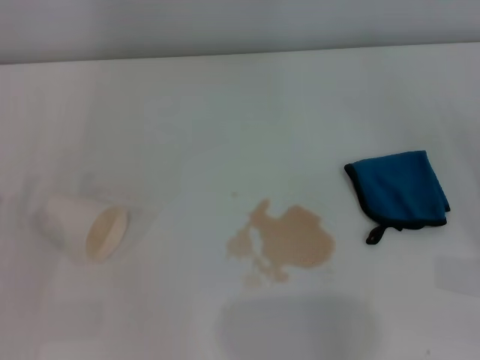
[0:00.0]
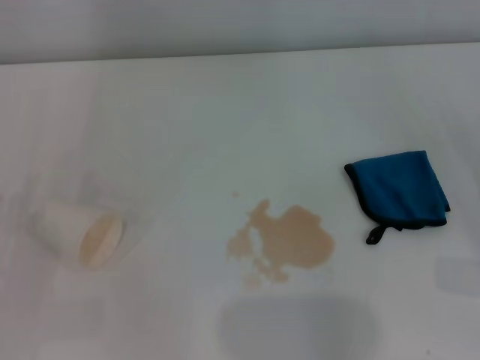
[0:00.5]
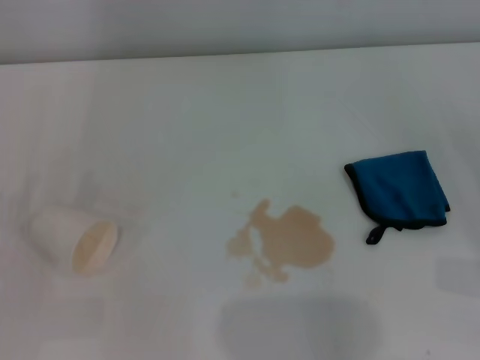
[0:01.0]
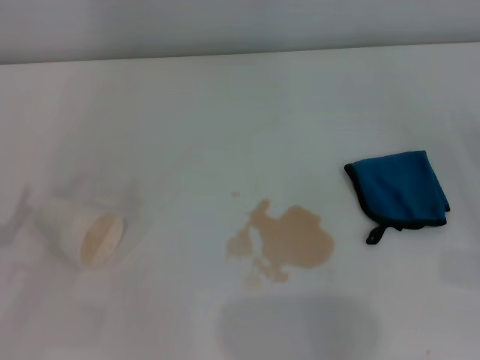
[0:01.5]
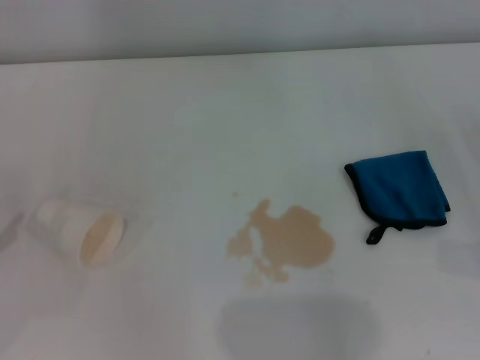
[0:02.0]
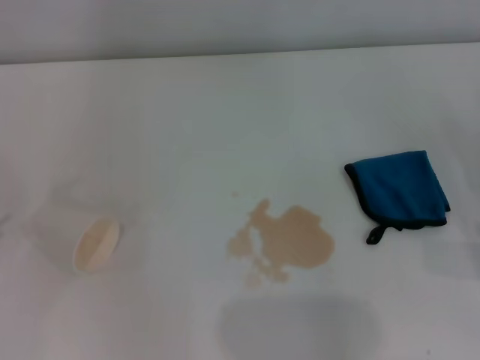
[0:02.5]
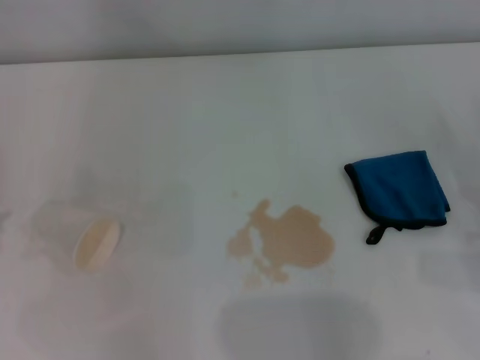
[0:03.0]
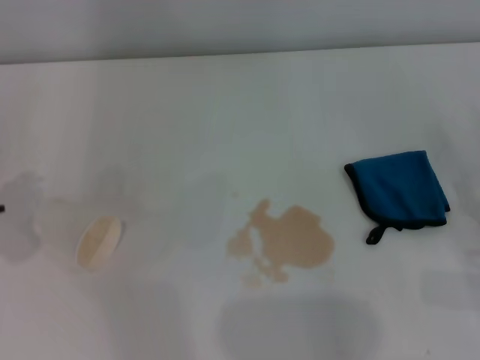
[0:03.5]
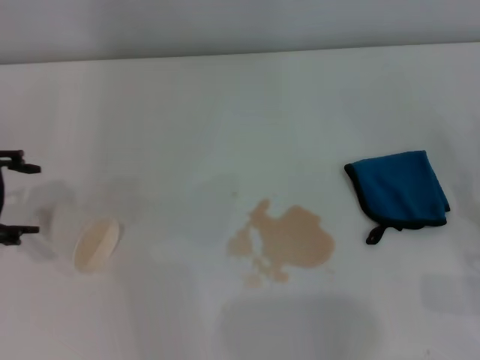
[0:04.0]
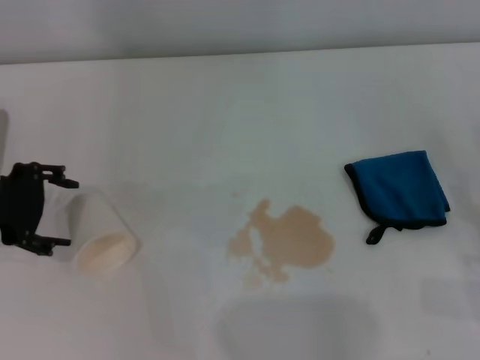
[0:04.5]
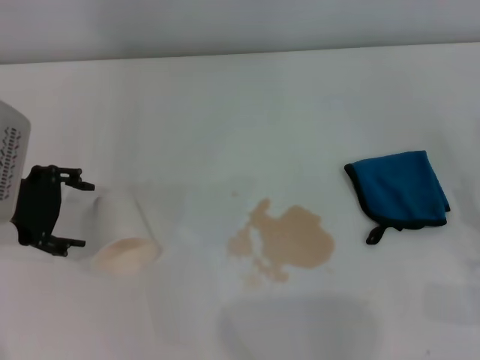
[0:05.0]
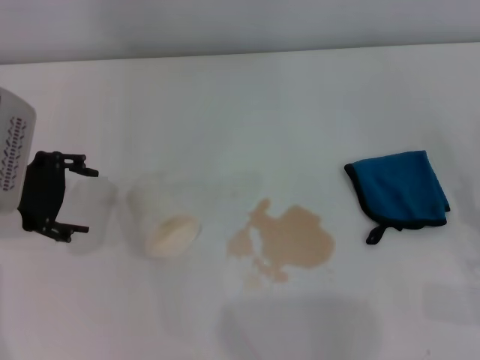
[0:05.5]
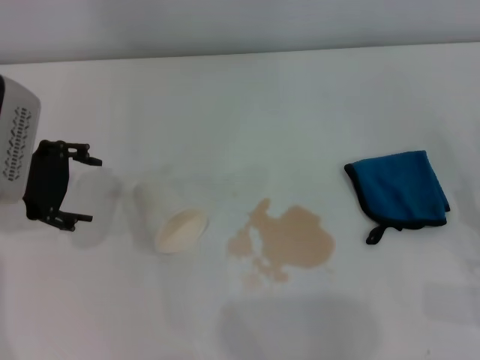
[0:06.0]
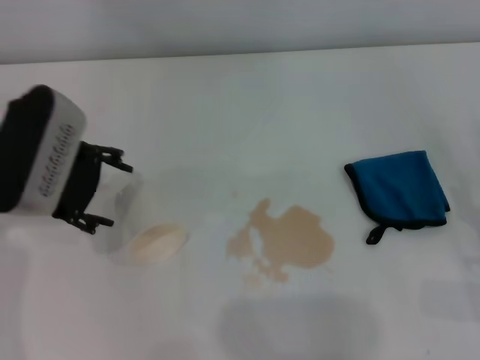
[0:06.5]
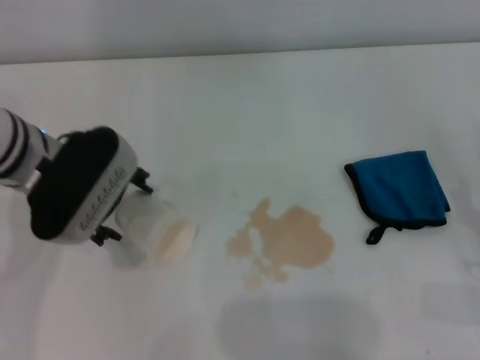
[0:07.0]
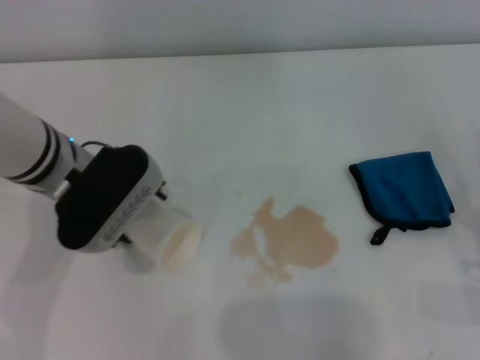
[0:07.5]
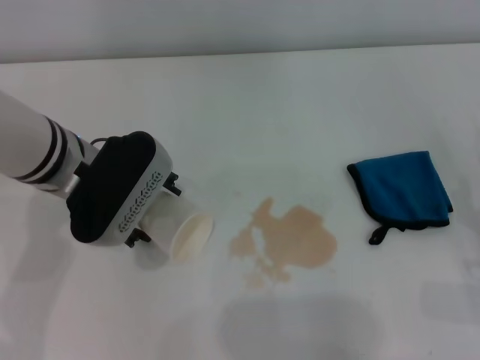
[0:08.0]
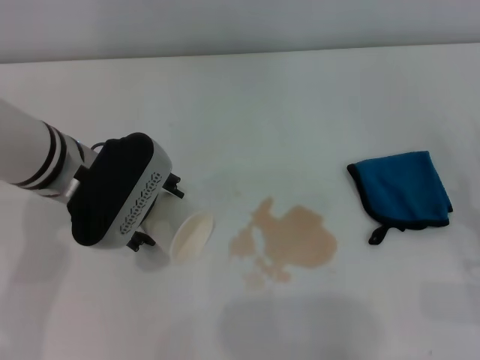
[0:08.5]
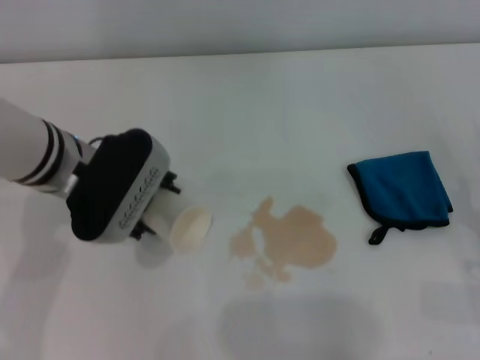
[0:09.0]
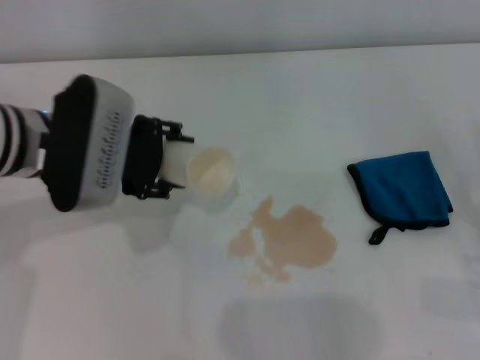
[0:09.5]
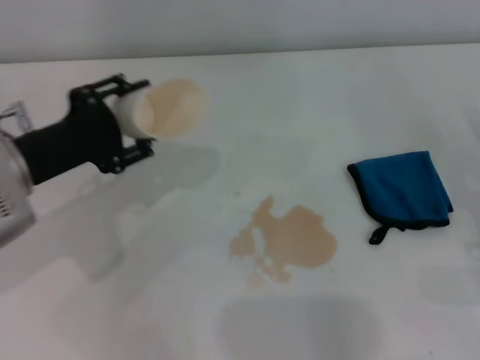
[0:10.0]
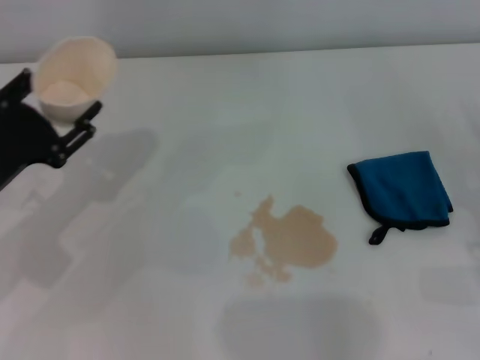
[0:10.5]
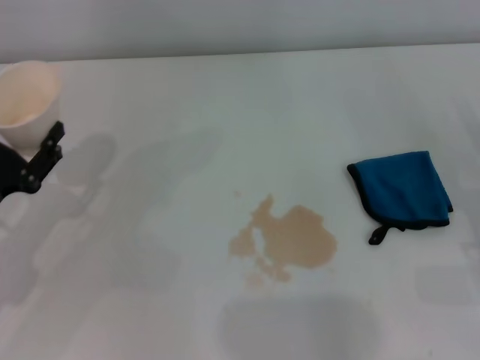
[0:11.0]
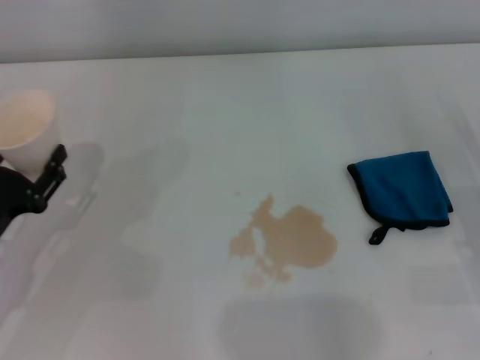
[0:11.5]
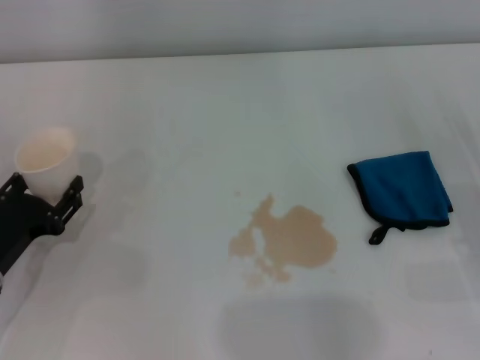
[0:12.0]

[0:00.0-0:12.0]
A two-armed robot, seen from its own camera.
Step, 0:00.0 to 0:08.5: Grasp the paper cup with the left gripper.
0:02.0 to 0:04.0: The left gripper travels forward, to the right and upward by roughly 15 cm.
0:04.0 to 0:06.0: The left gripper shifts some 5 cm to the right.
0:06.0 to 0:08.0: The left gripper travels to the right by some 10 cm.
0:08.0 to 0:10.0: The left gripper is displaced to the left by approximately 10 cm, and closes its fingers.
0:10.0 to 0:12.0: The left gripper heads downward, backward and to the left, covering approximately 15 cm.

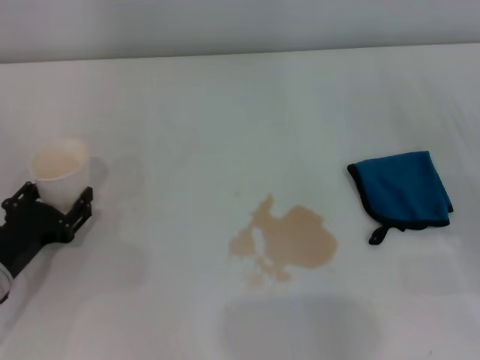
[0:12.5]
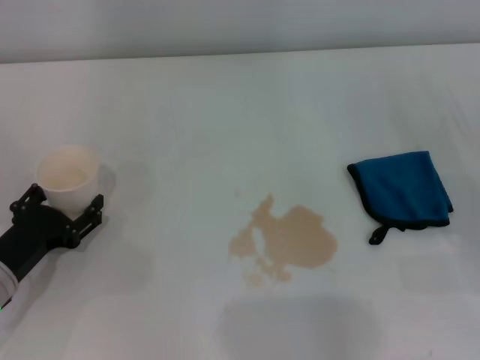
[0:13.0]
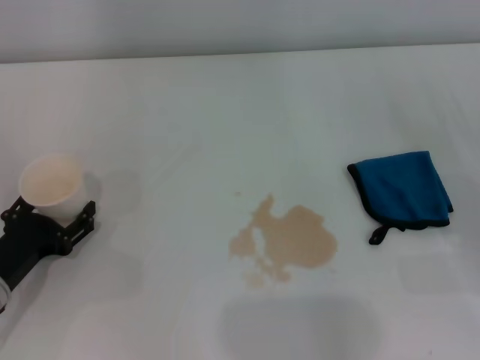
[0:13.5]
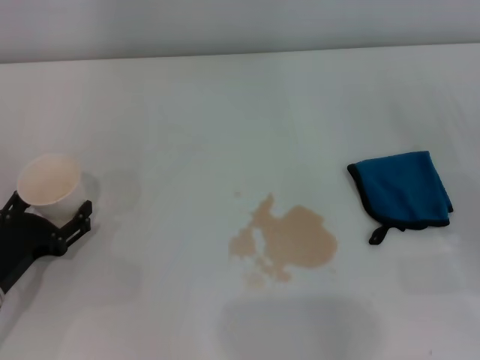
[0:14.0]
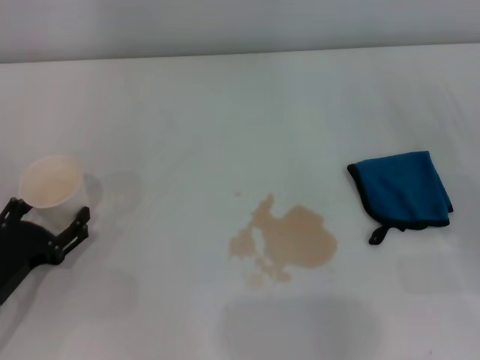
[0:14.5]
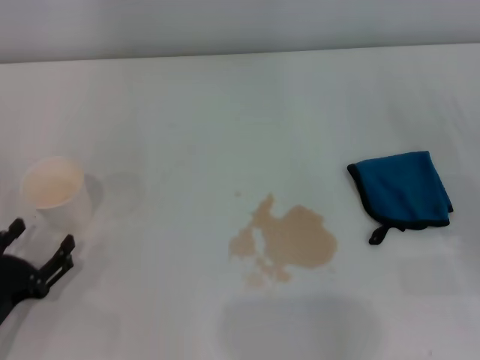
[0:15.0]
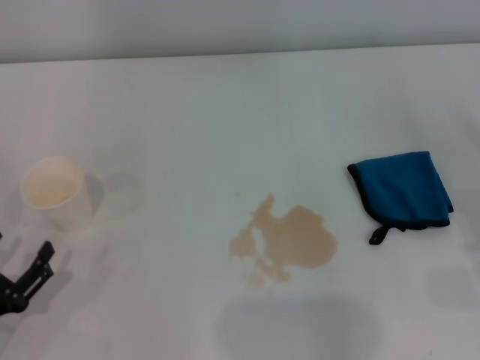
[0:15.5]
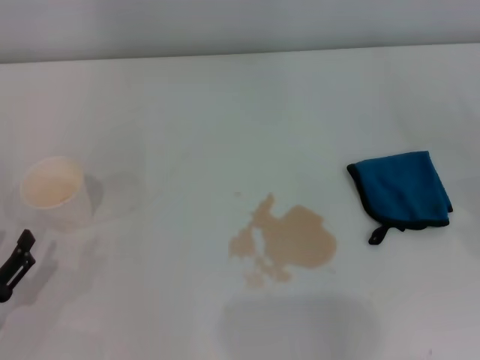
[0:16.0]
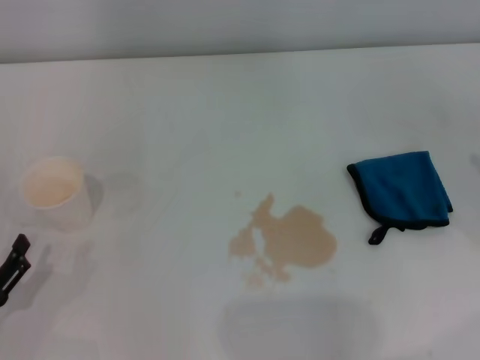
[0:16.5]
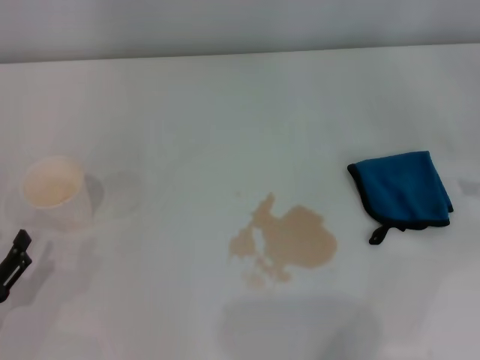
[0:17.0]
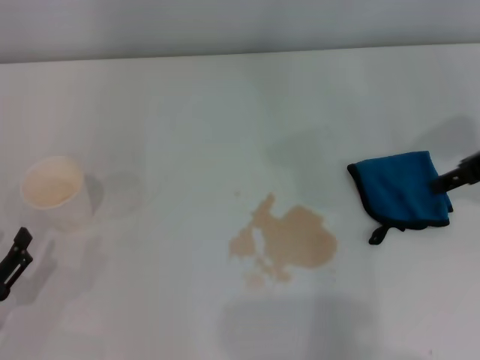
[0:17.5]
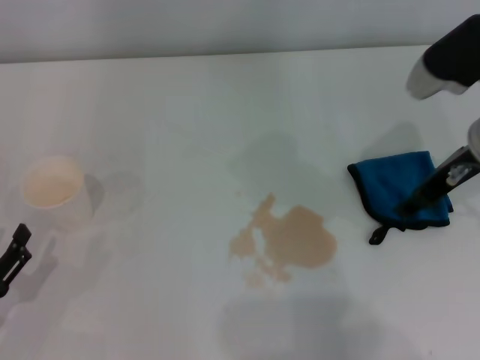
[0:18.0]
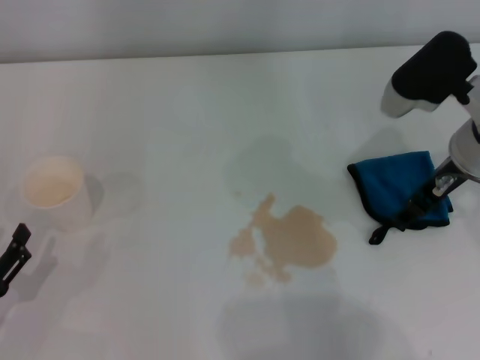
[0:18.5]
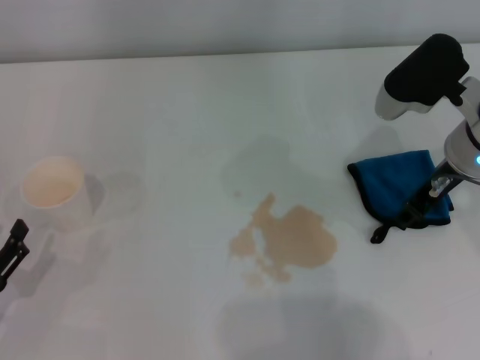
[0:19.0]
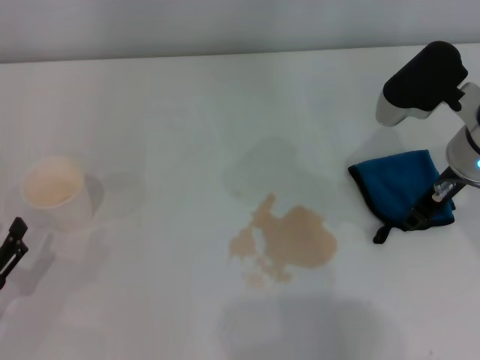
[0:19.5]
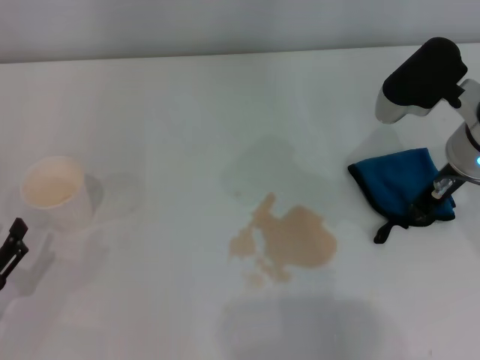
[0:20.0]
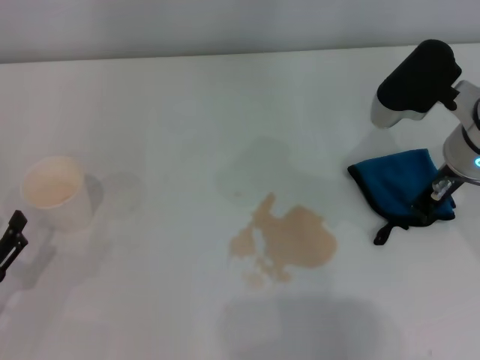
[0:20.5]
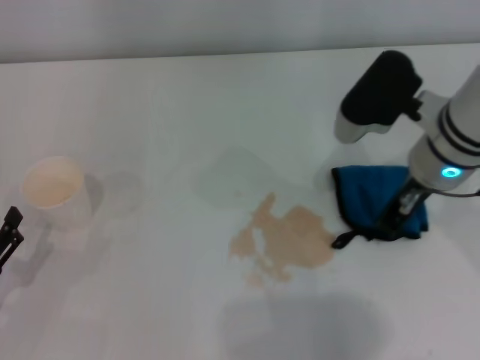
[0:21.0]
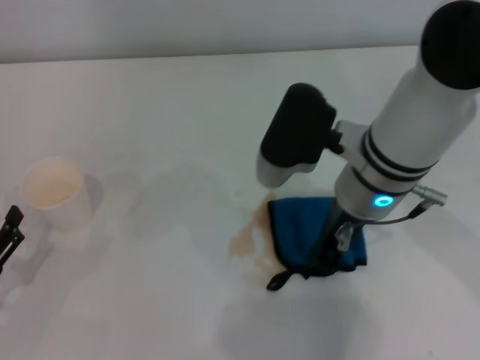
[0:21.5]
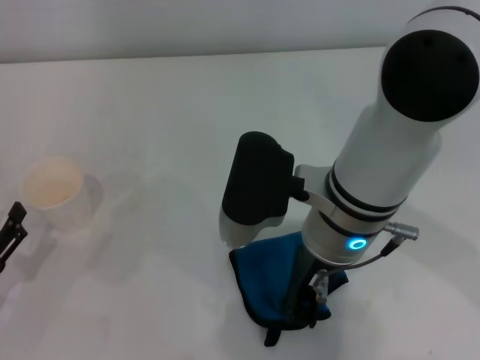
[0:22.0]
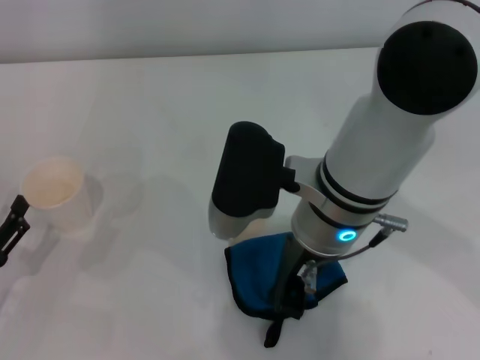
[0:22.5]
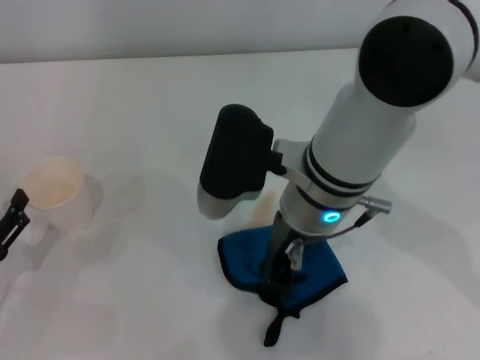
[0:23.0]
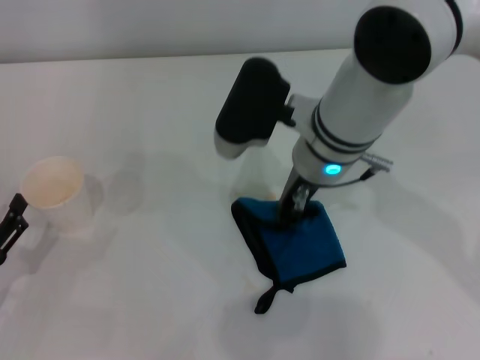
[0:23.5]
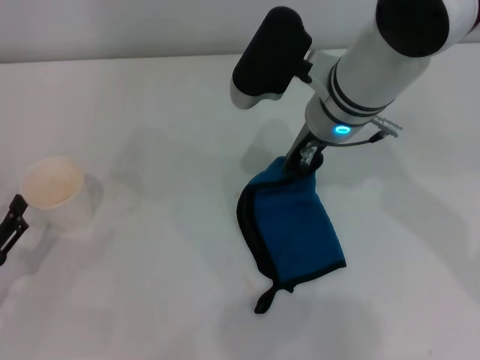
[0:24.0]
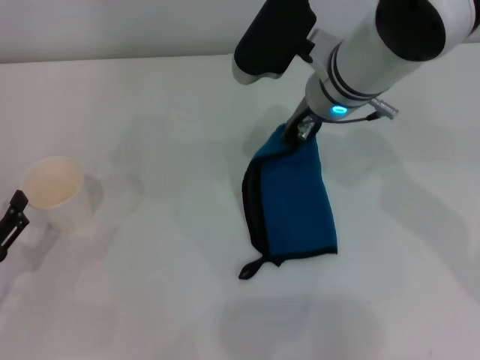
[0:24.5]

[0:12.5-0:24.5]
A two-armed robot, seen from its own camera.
Step, 0:12.5 to 0:14.5: Stand the paper cup upright with the left gripper.
Step, 0:15.0 to 0:20.5: Grasp the rag with the right gripper.
0:12.5 to 0:14.5: The left gripper opens up.
0:14.5 to 0:16.5: The left gripper is displaced backward by approximately 5 cm.
0:16.5 to 0:18.5: The right gripper goes roughly 25 cm to the left and forward.
0:18.5 to 0:20.5: The right gripper closes its fingers.
0:20.5 to 0:22.5: The right gripper shifts some 15 cm to the left.
0:22.5 to 0:24.5: The right gripper moves forward, about 10 cm.

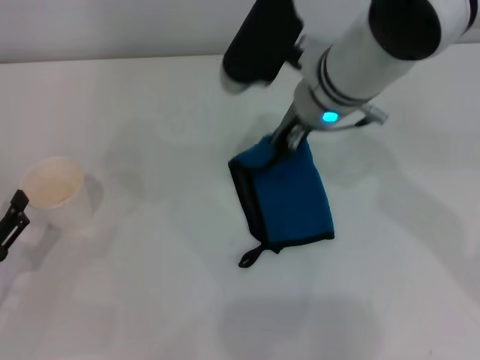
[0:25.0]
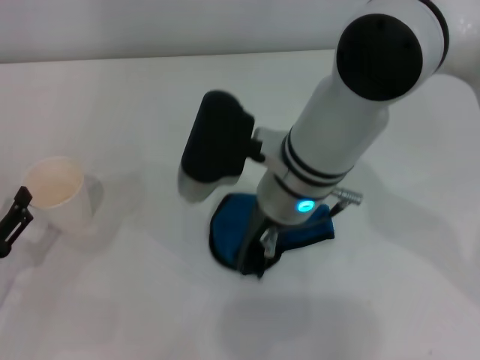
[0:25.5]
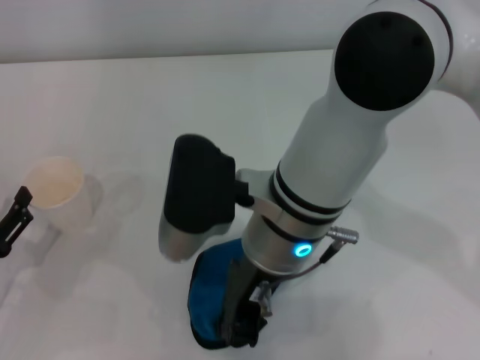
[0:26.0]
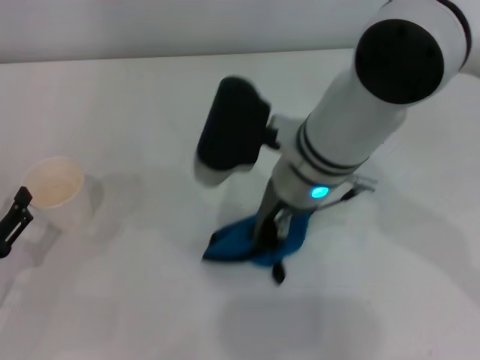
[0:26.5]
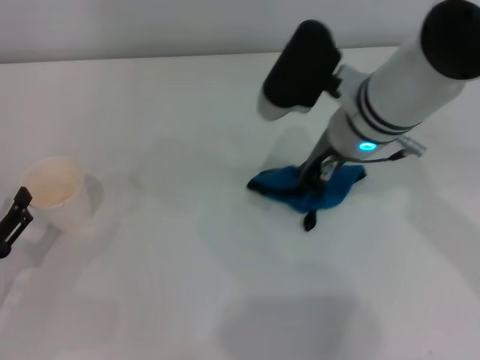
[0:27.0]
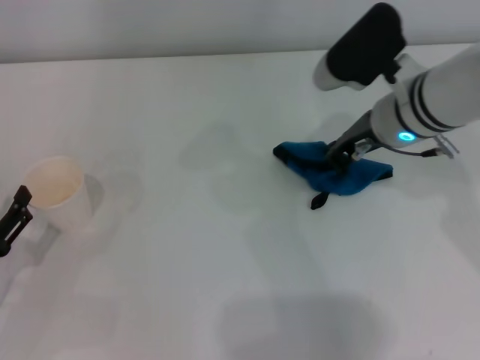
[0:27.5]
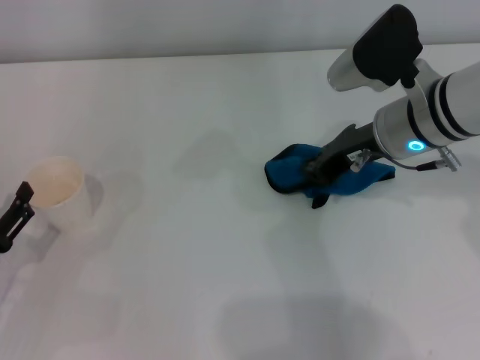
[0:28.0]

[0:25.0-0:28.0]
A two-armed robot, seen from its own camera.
Step, 0:25.0 to 0:27.5: Wipe the stains off the table with the right gripper.
0:25.0 to 0:26.5: The right gripper shifts some 5 cm backward.
0:26.5 to 0:28.0: The right gripper heads to the right, covering roughly 10 cm.
